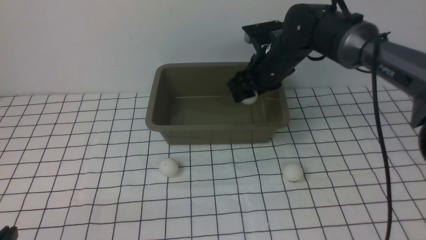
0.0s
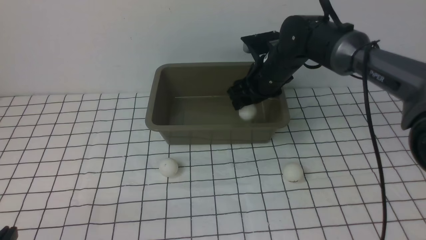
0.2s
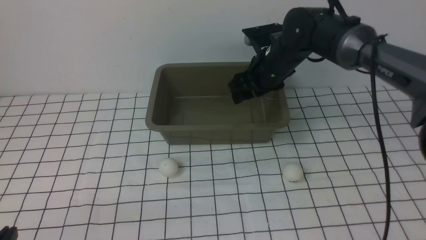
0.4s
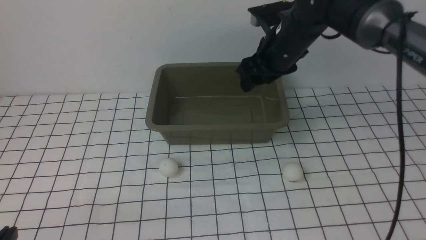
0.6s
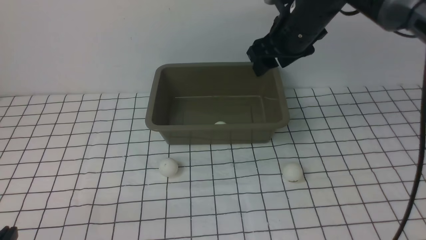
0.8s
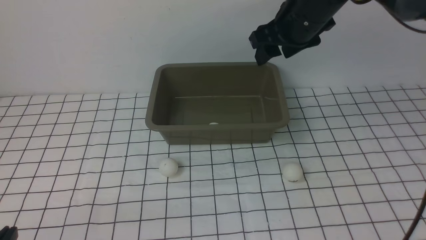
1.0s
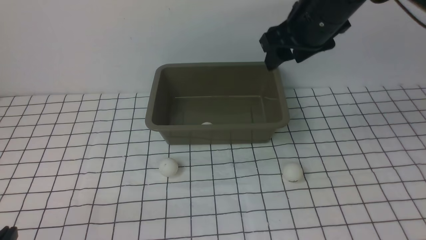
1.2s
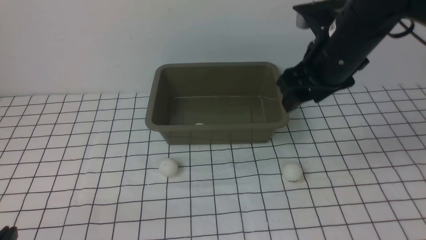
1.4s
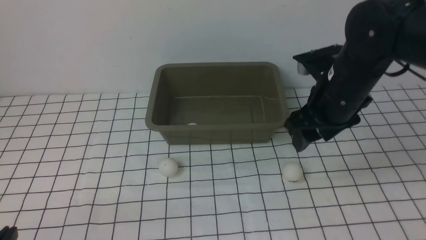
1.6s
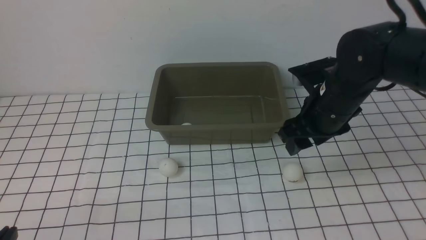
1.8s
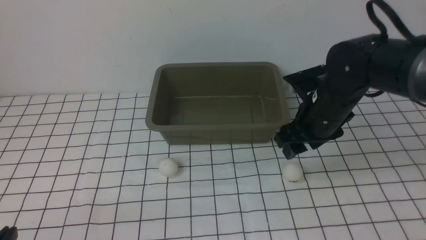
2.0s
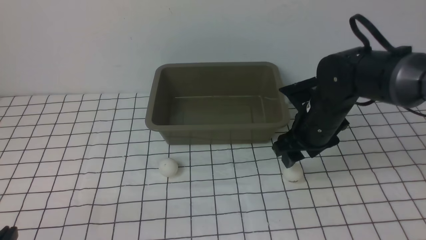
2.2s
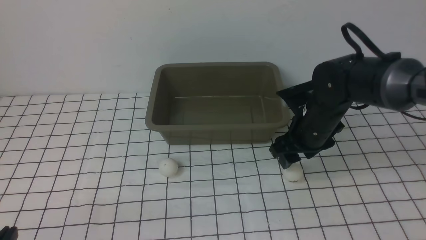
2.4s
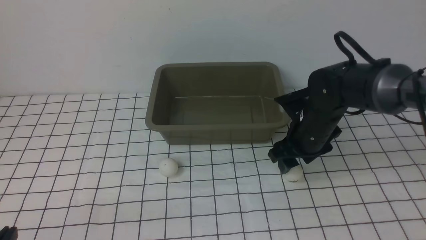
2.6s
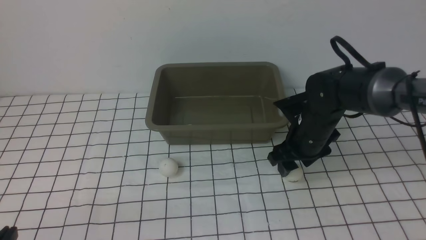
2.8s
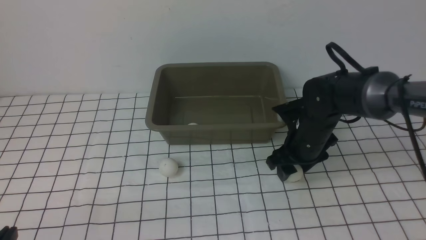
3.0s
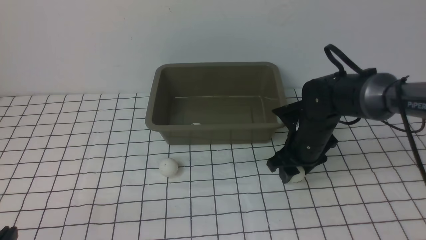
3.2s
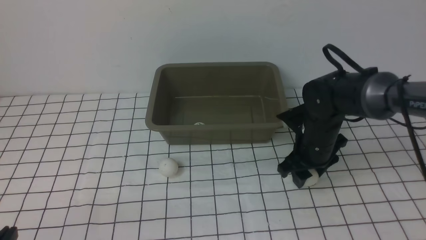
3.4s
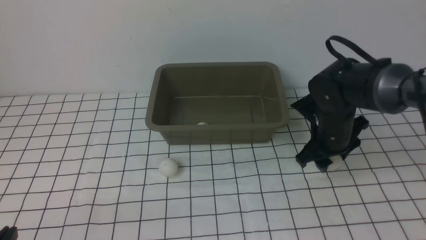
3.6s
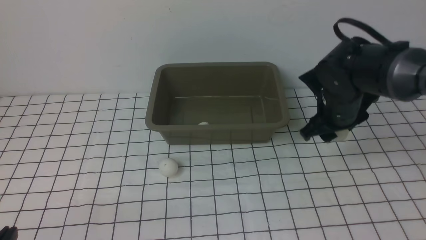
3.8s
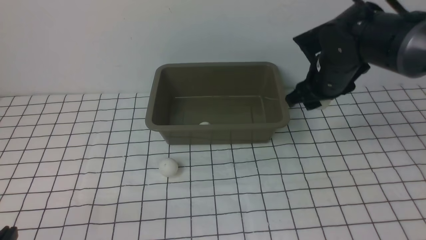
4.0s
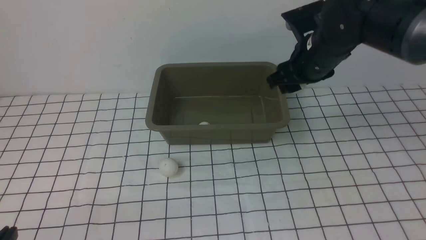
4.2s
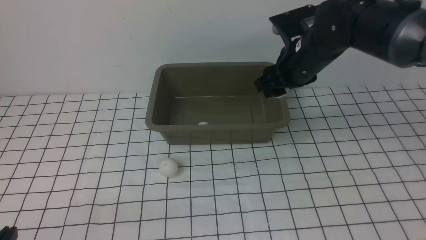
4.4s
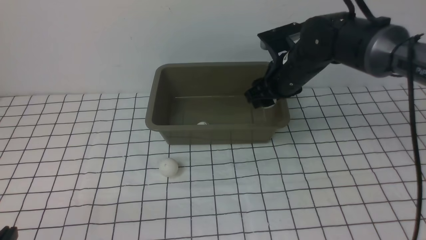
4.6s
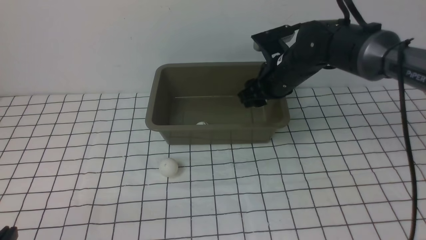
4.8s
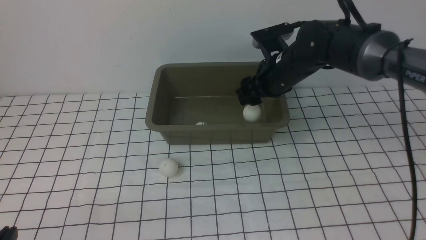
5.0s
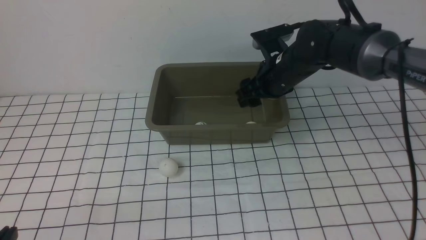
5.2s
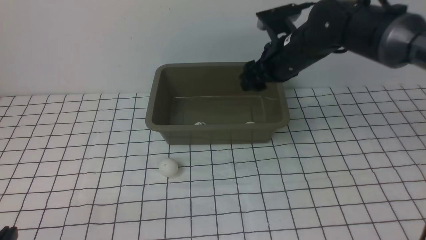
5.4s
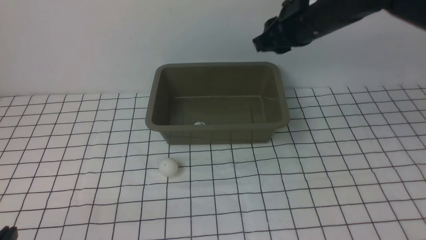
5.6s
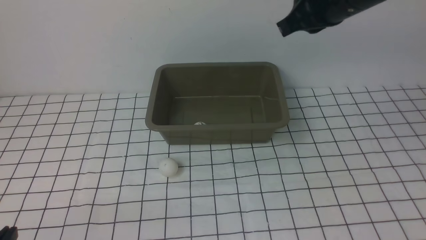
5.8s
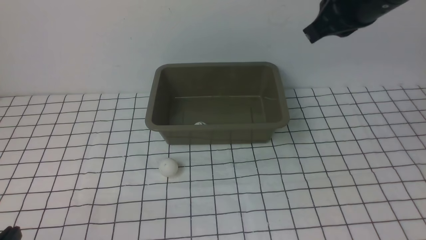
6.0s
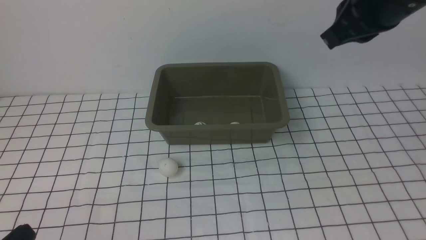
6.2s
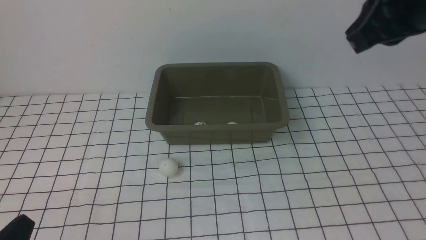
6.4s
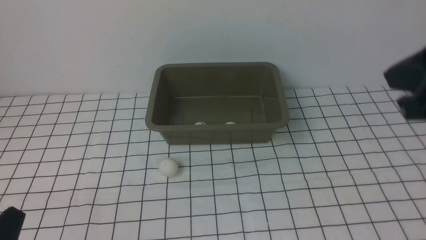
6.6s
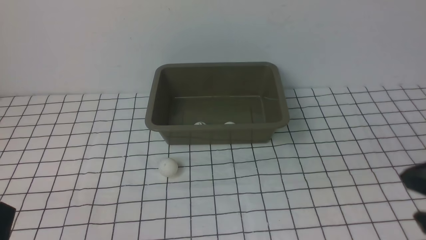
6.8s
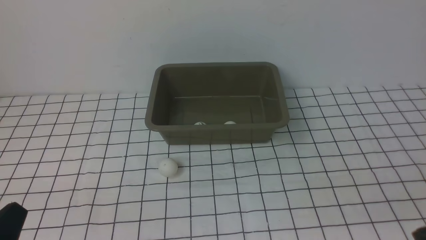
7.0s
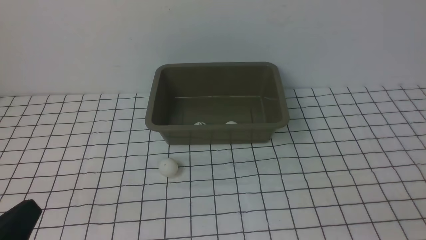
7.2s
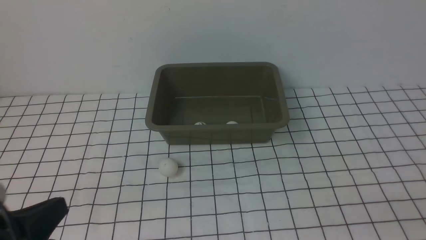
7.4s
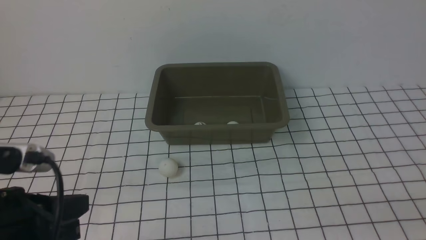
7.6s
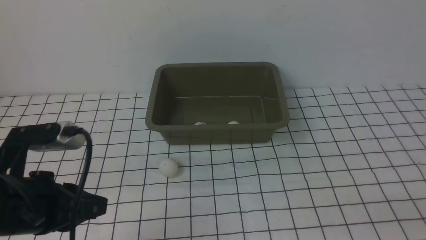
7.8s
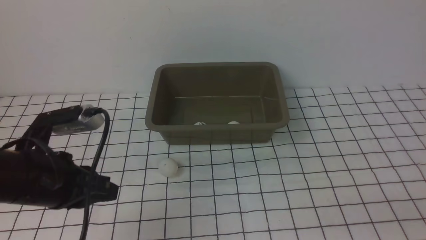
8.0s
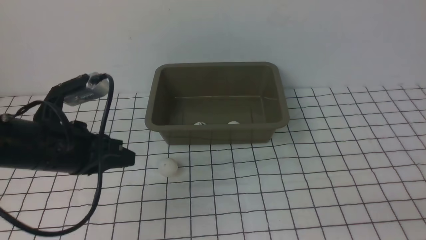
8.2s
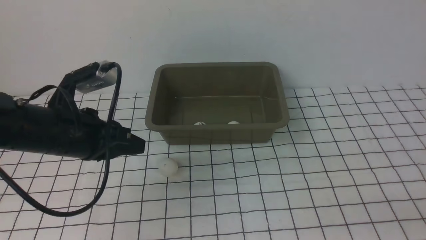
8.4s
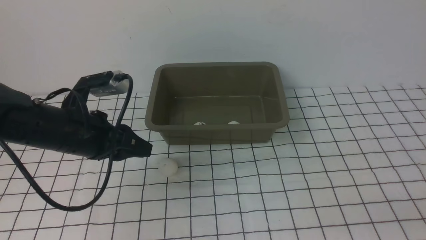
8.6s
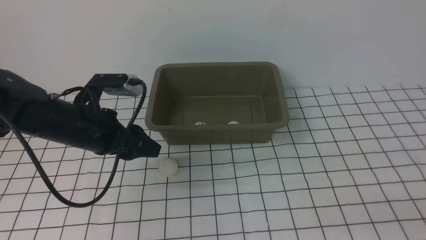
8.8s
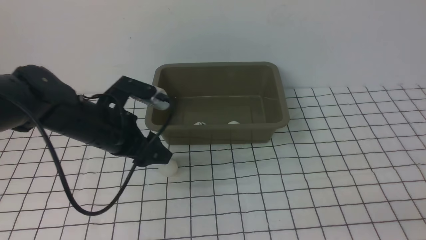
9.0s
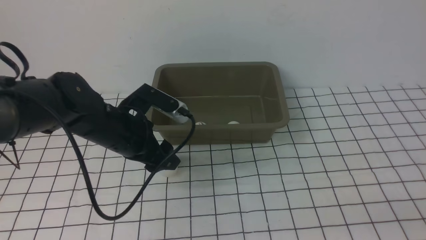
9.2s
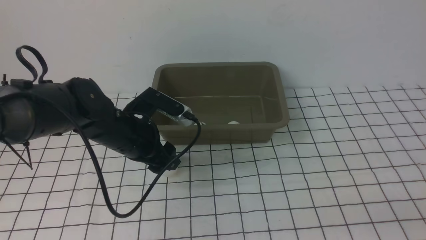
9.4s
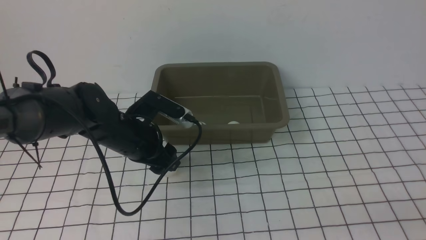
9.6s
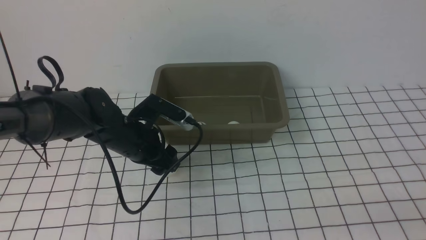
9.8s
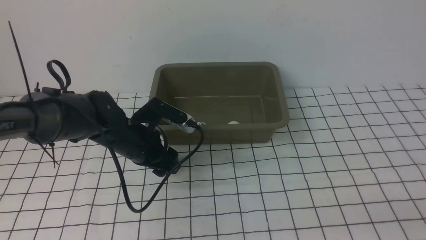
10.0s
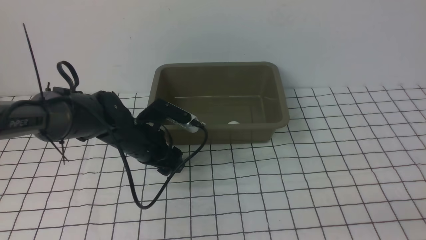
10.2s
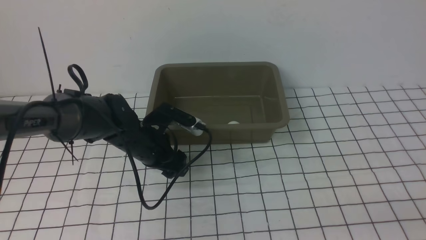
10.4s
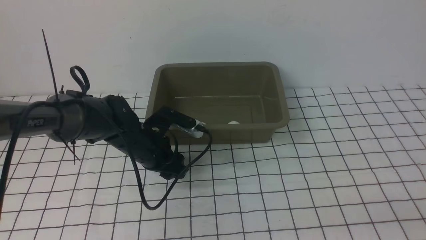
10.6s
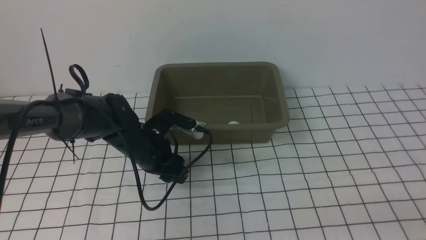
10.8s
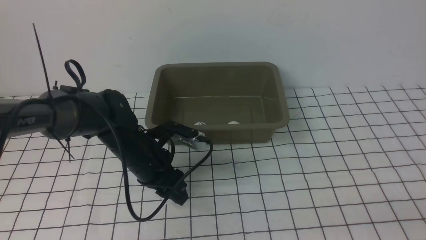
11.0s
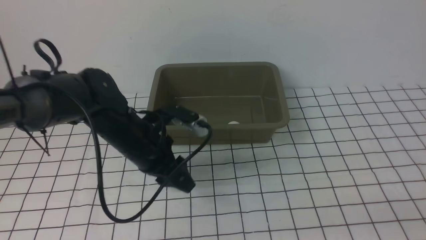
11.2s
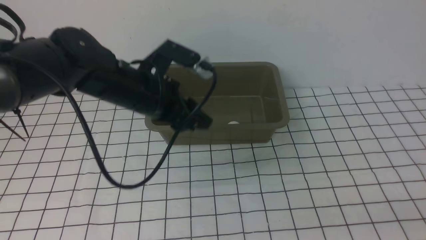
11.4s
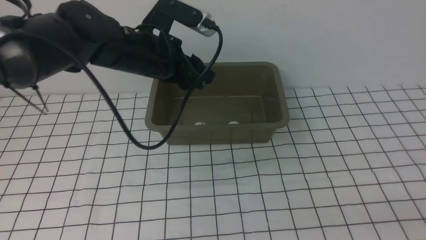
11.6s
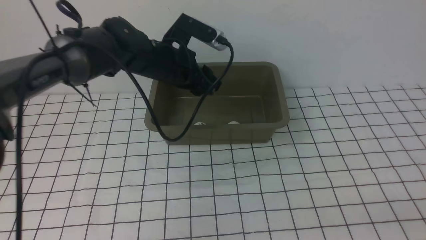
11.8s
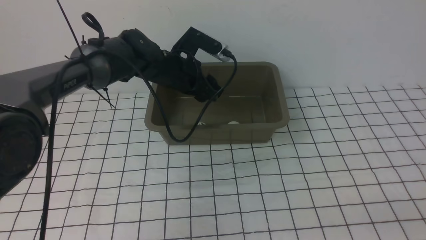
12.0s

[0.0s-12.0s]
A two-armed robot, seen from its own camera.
Step, 0.6s to 3.6s: use the right arm to clamp the table tennis ball closest to it.
Step, 3.8s to 5.2s: use the right arm to put the table tennis ball into the box.
Step, 5.4s to 11.2s: use the left arm to clamp the table tennis ball closest to it.
0.0s to 1.6s: The right gripper is displaced backward and to the right by approximately 15 cm, and travels upward and back again, some 10 cm each way.
1.6s to 3.0s: The right gripper moves downward, roughly 10 cm.
3.0s to 4.4s: The right gripper shifts about 10 cm upward and forward.
4.4s to 6.0s: The right gripper goes about 20 cm upward and backward, and closes.
6.0s to 7.6s: The left gripper goes some 10 cm upward and forward. The right gripper heads backward, downward and to the right, covering about 30 cm.
7.6s to 9.0s: The left gripper moves forward, some 20 cm, and opens its fingers.
9.0s to 10.4s: The left gripper goes some 5 cm downward.
10.4s to 12.0s: The left gripper travels forward and upward by roughly 15 cm.

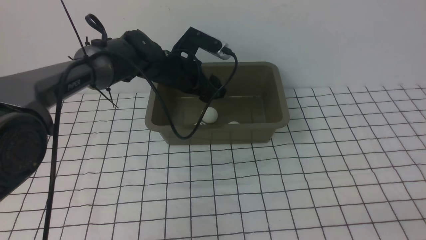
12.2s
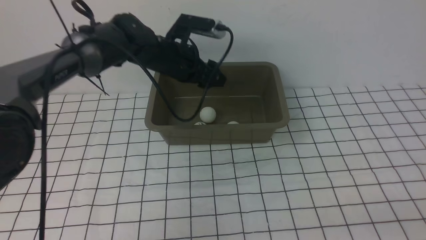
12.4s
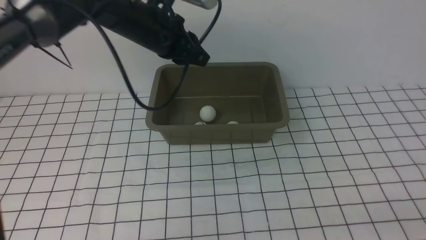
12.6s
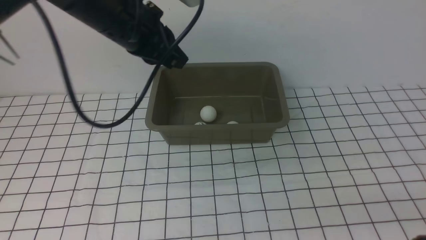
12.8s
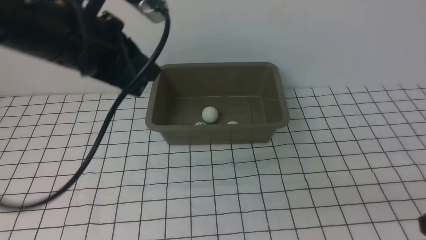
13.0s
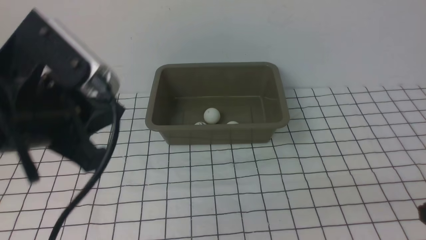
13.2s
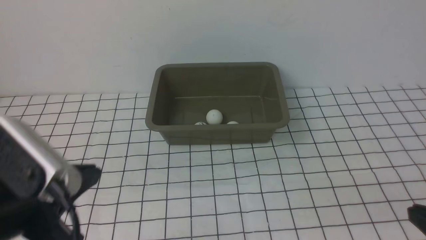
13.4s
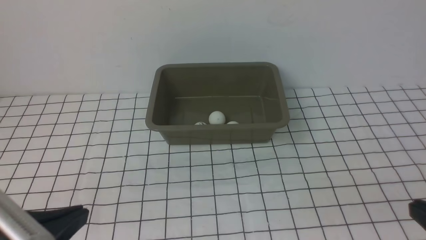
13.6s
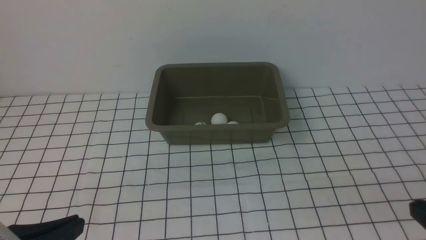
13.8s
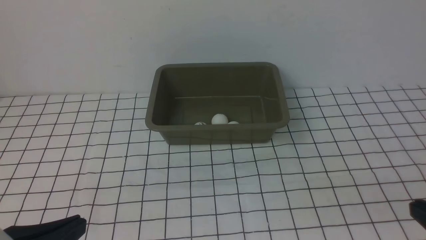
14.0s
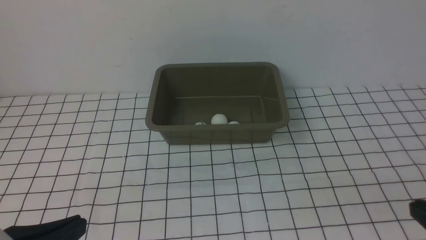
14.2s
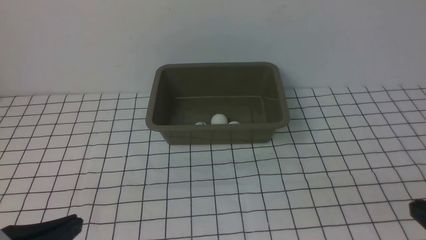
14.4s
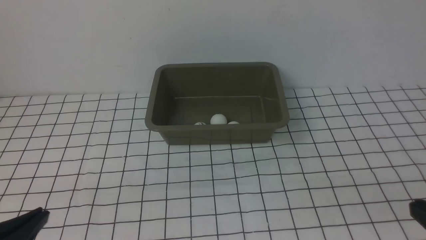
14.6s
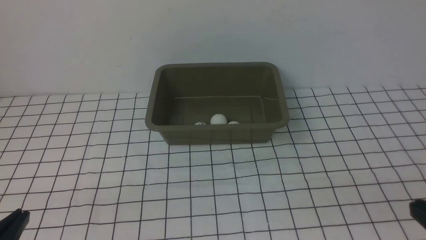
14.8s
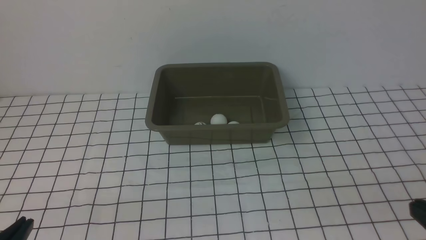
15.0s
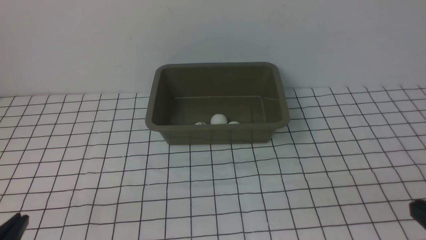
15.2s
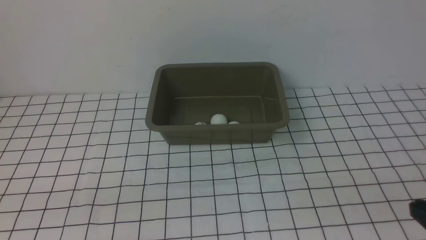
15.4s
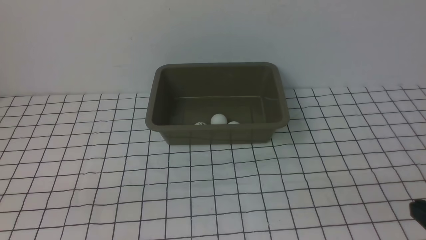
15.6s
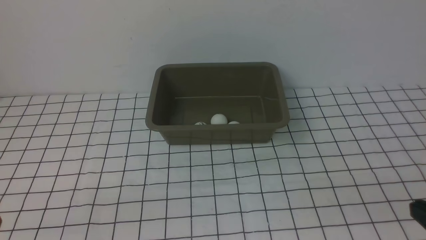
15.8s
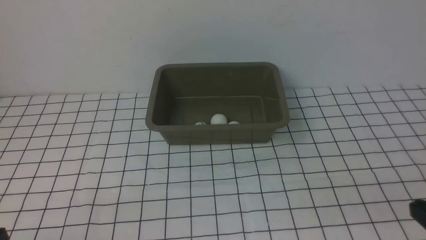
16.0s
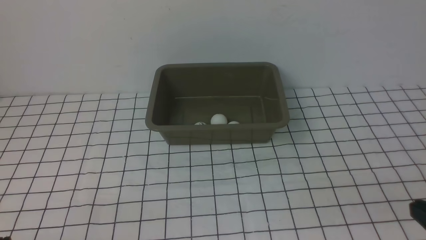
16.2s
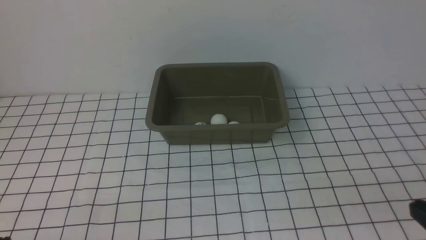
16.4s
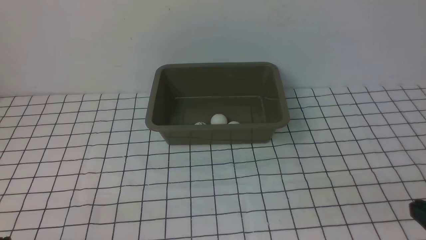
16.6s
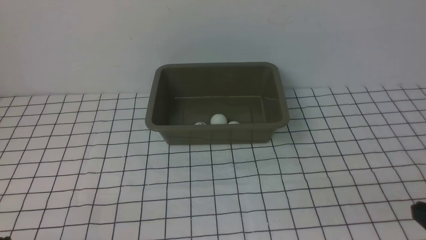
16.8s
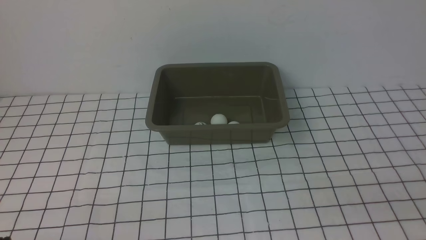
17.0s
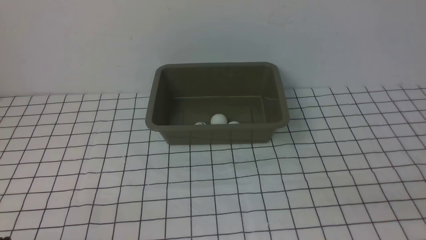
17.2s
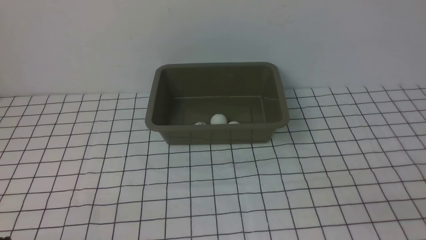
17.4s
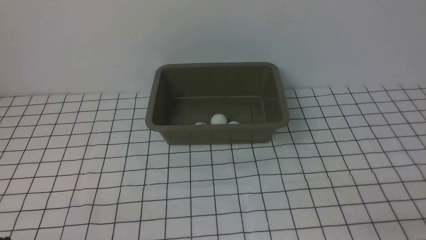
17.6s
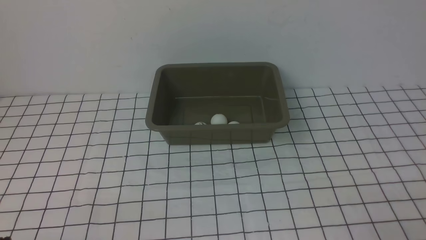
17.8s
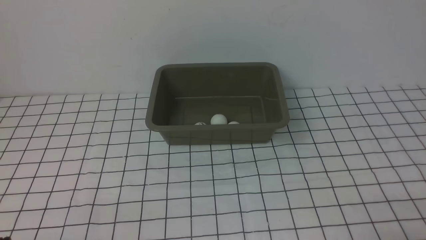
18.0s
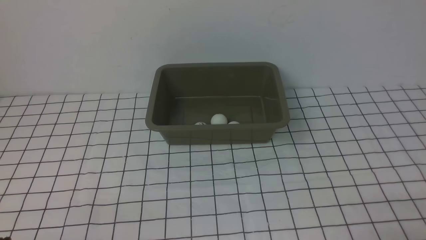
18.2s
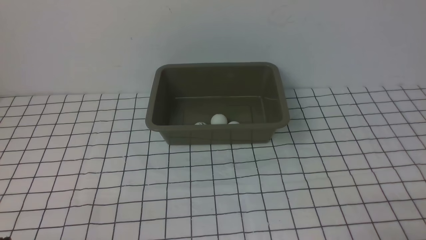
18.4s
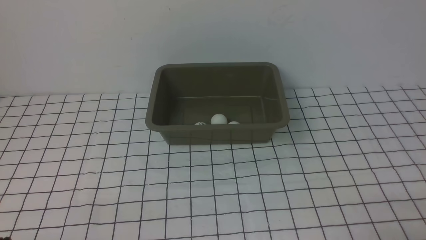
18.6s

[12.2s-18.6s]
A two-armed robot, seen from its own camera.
12.2s to 13.8s: The left gripper travels backward by roughly 40 cm, and closes up.
13.8s to 15.4s: The left gripper moves roughly 5 cm.
